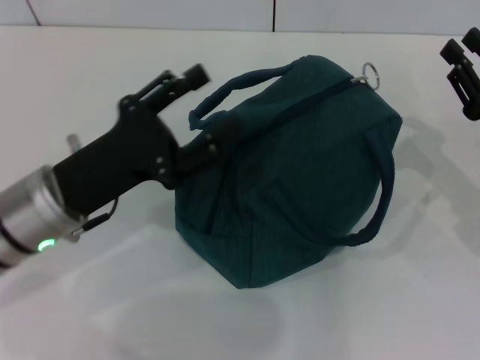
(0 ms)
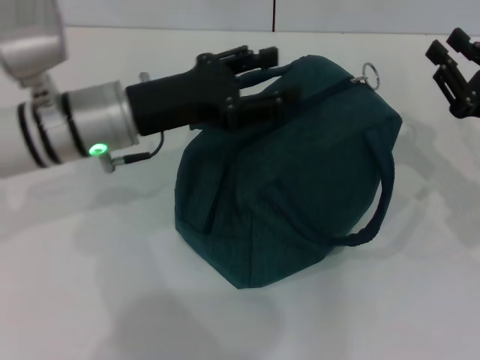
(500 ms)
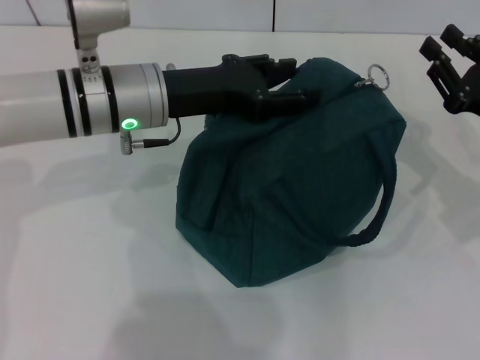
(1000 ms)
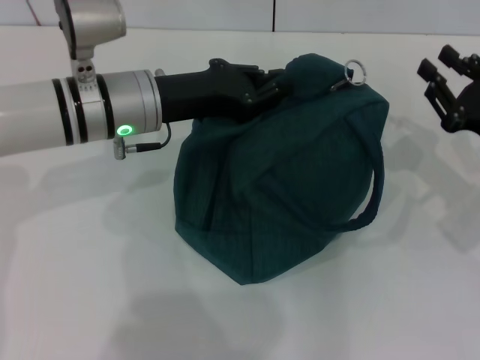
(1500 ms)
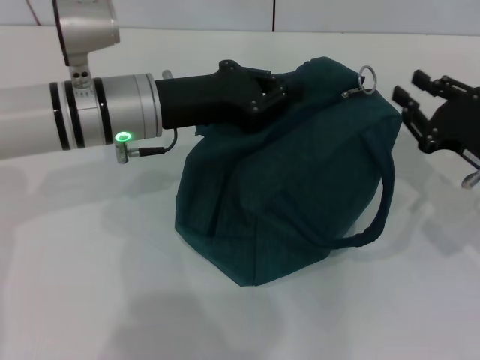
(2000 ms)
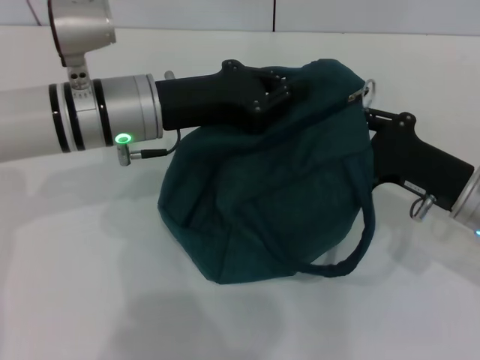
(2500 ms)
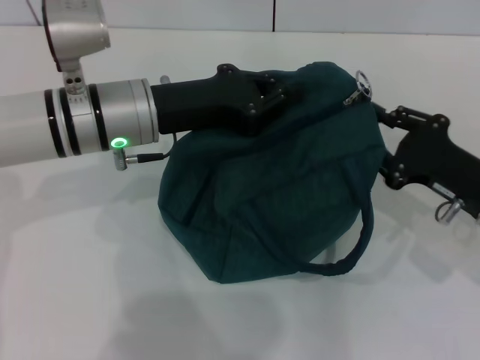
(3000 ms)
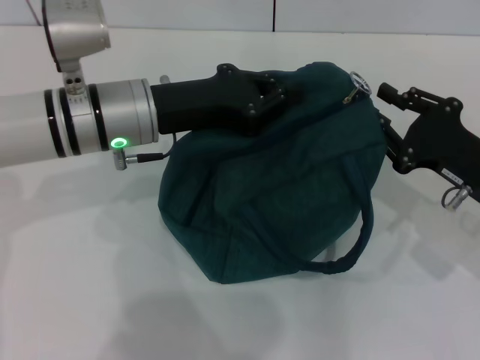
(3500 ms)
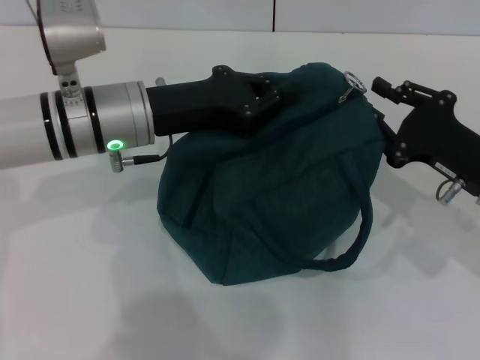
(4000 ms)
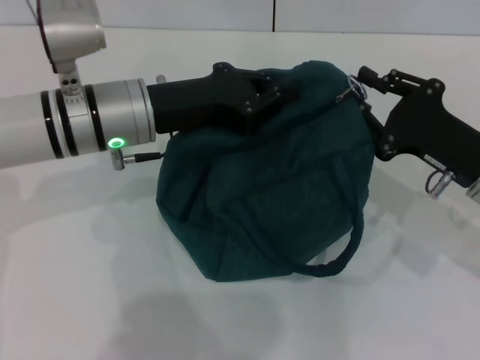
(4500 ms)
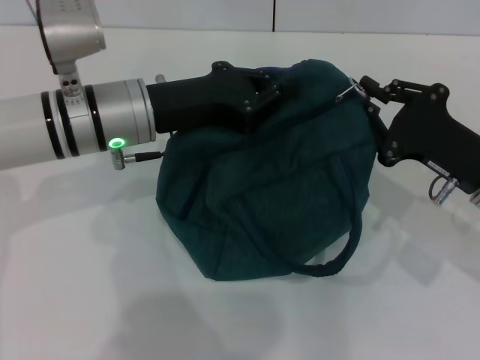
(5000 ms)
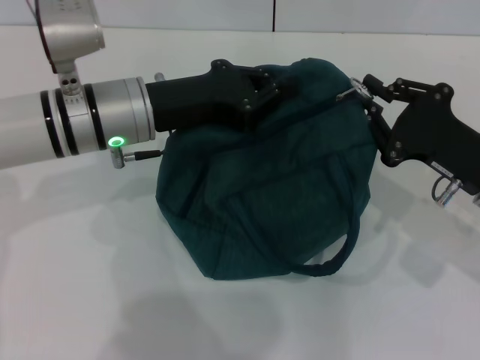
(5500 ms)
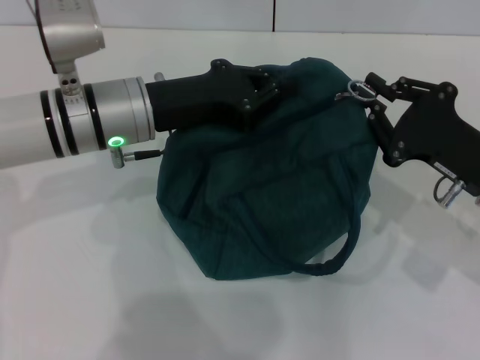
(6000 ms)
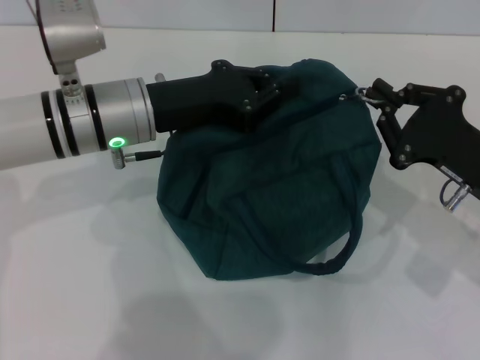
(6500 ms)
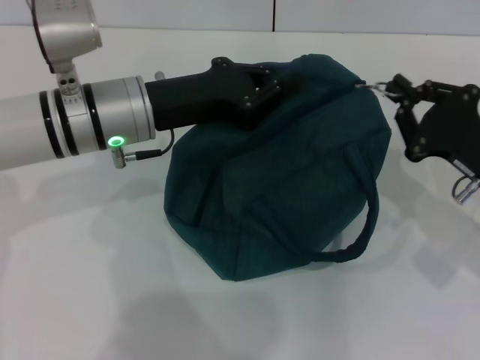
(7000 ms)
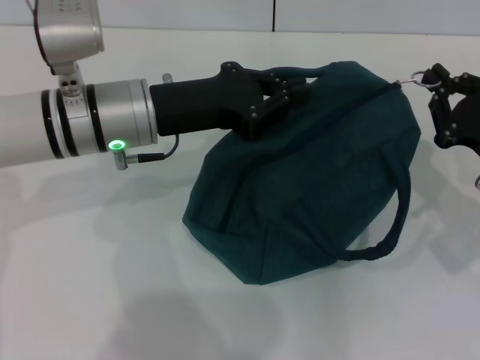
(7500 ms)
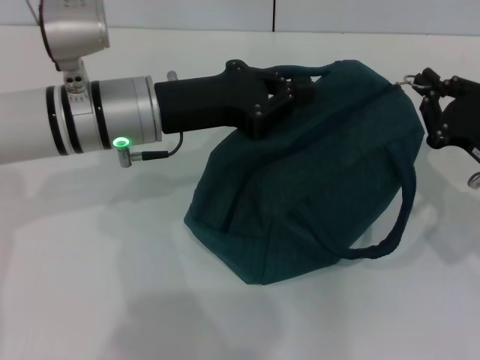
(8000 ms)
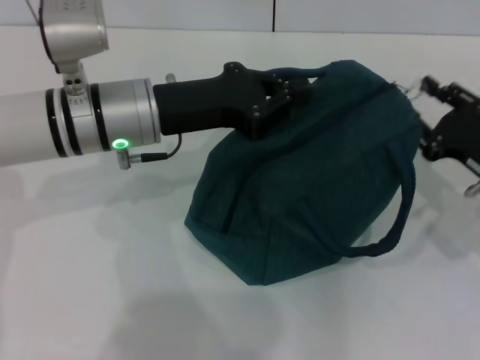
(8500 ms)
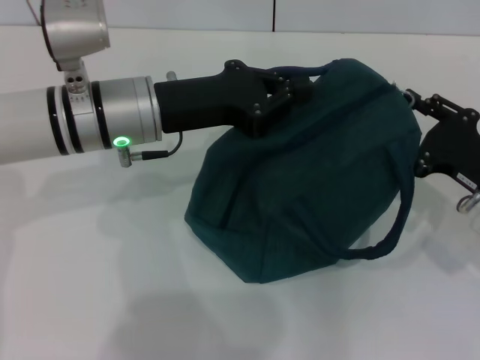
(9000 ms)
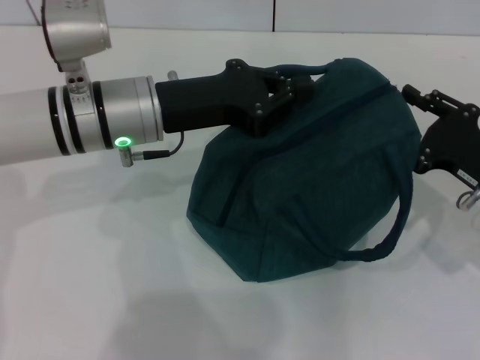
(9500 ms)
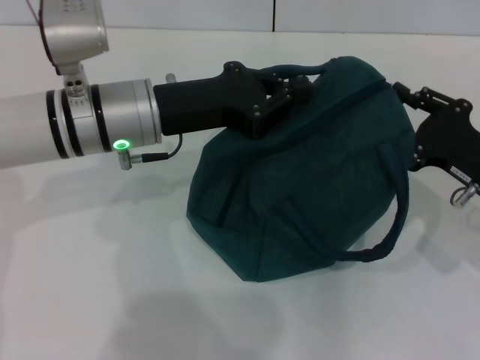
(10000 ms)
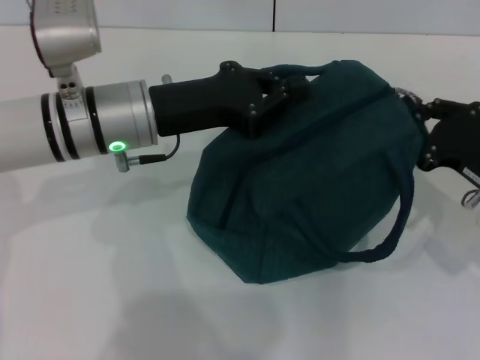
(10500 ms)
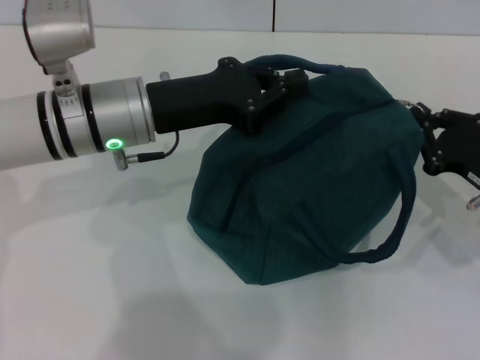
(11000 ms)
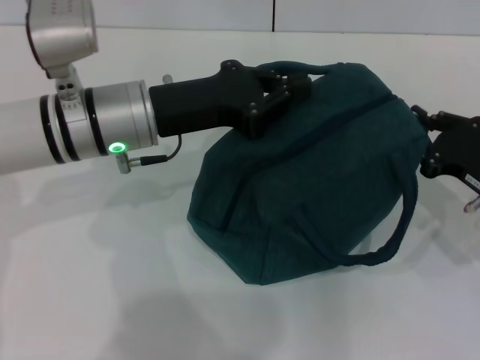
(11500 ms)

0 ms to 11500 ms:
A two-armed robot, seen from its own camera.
0 ms to 2000 ms: The left gripper goes roughly 10 cm forward and to the right, and closes its fingers.
2000 ms to 7500 ms: The grippers make only small movements.
7500 ms to 9500 ms: The right gripper opens.
9500 ms to 11500 ms: The right gripper closes.

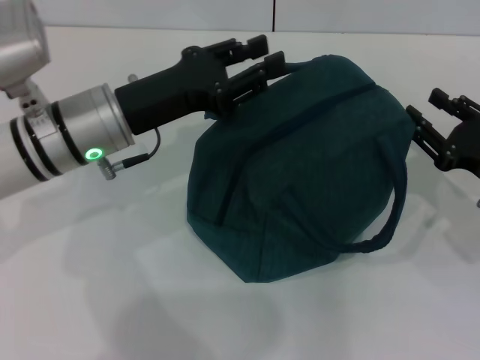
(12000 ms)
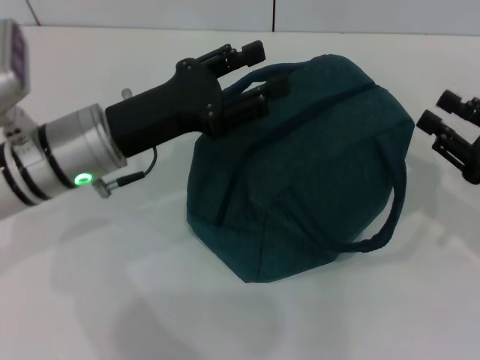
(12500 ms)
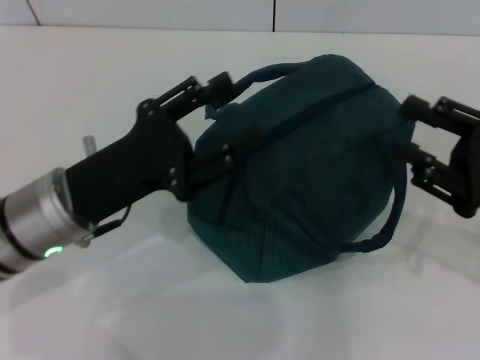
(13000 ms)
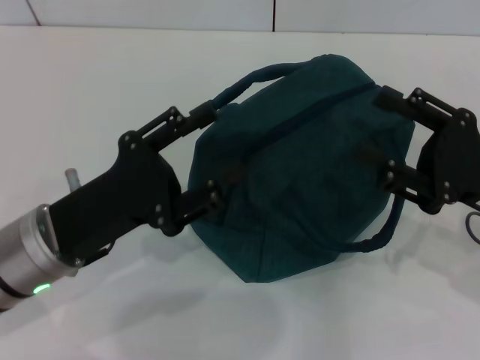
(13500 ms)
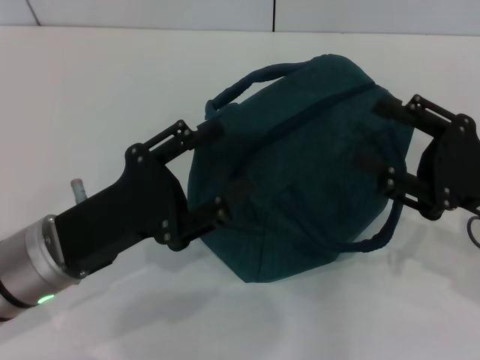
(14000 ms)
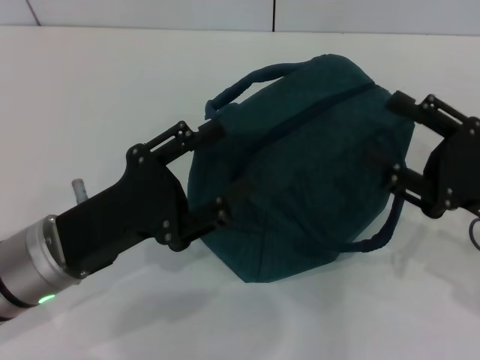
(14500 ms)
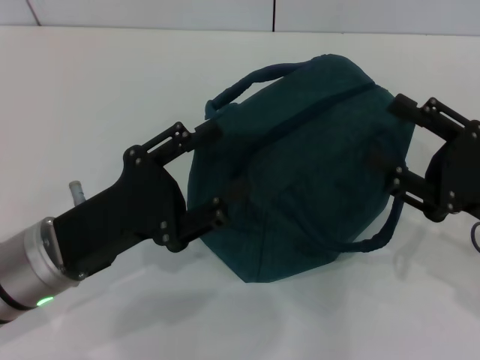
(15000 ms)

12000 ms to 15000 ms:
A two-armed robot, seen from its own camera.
12000 ms to 13500 ms: The right gripper moves roughly 5 cm. The left gripper shifts roughly 10 cm backward, and opens its fingers.
13500 ms to 15000 ms: The grippers move only a little.

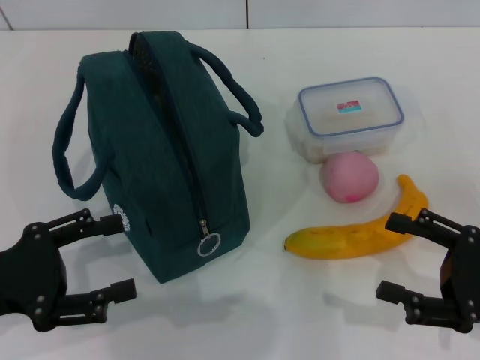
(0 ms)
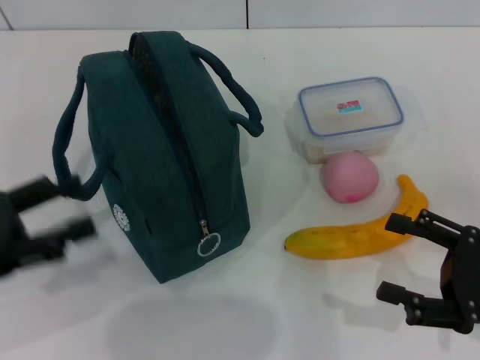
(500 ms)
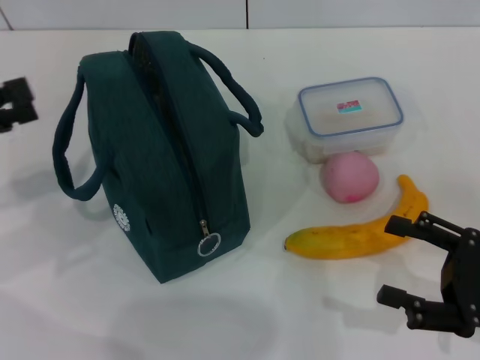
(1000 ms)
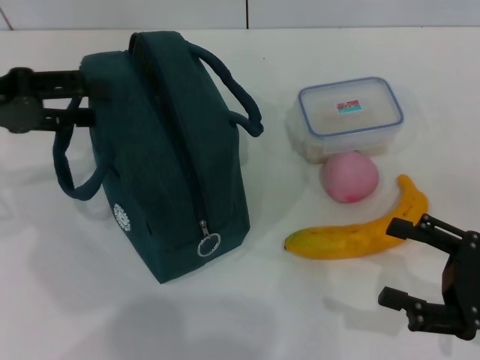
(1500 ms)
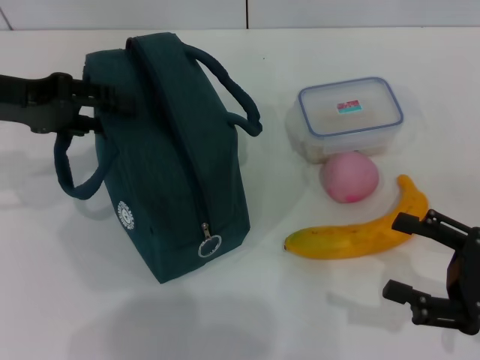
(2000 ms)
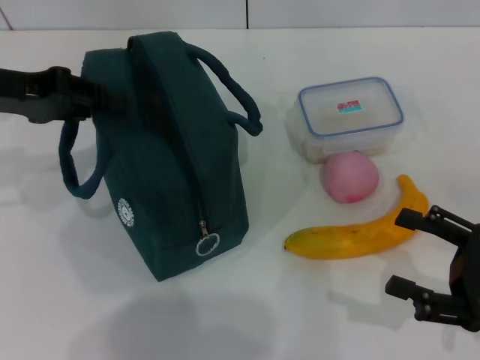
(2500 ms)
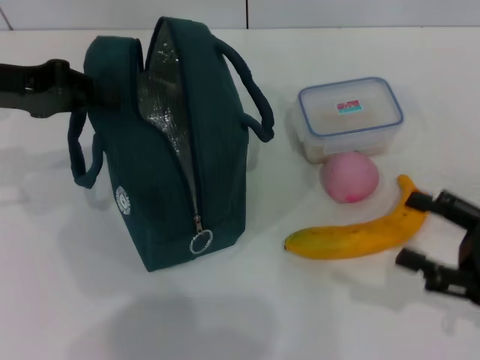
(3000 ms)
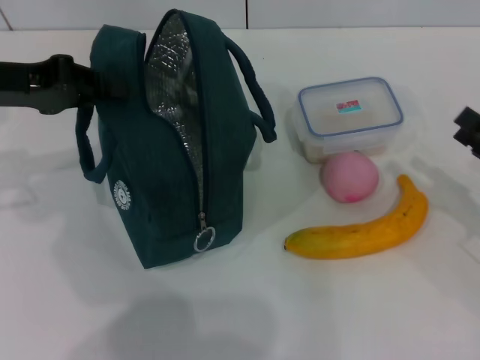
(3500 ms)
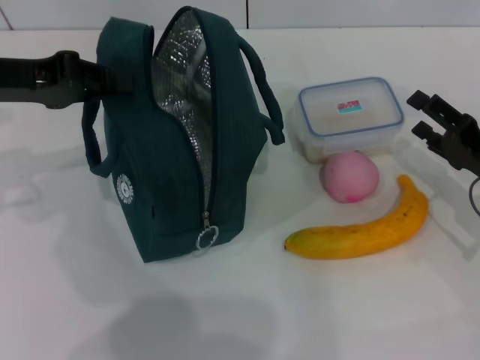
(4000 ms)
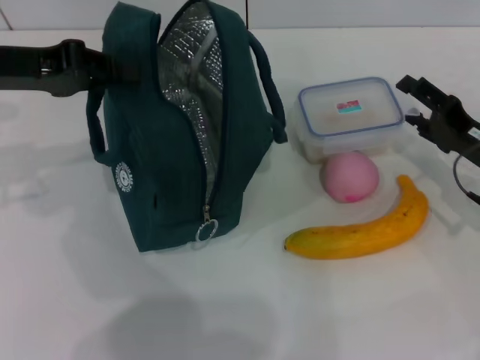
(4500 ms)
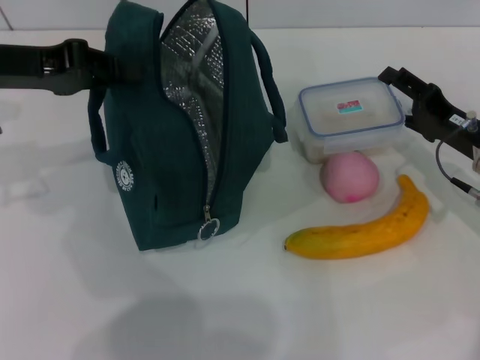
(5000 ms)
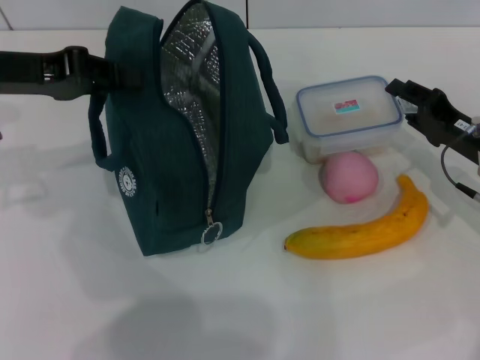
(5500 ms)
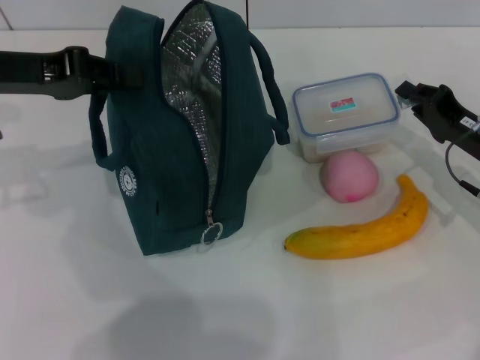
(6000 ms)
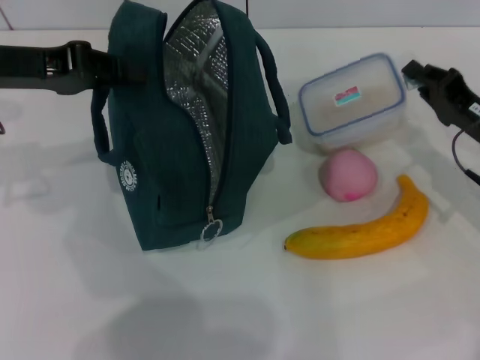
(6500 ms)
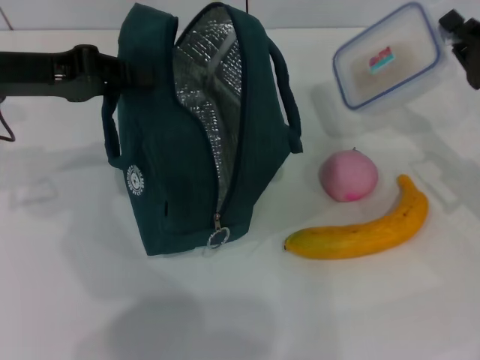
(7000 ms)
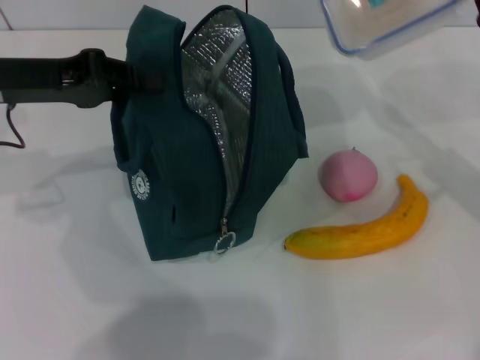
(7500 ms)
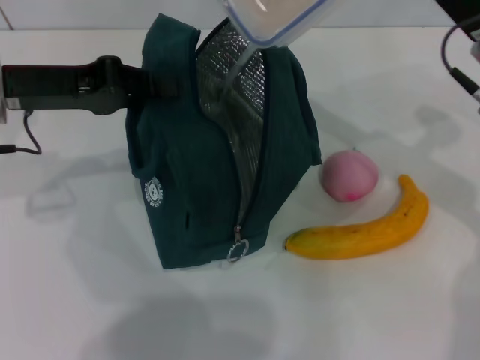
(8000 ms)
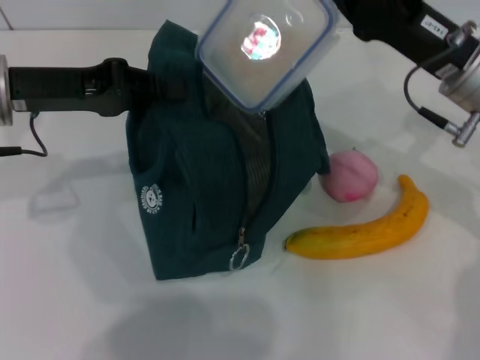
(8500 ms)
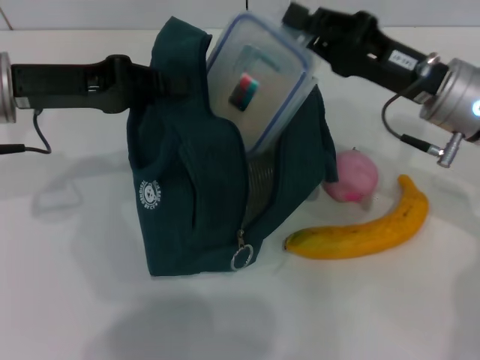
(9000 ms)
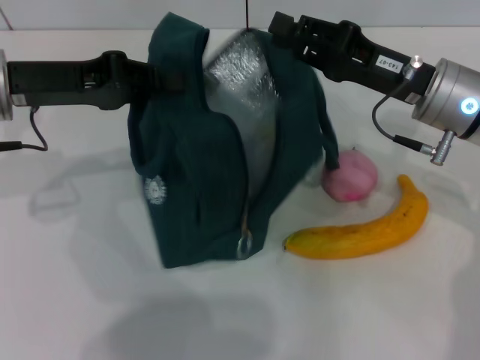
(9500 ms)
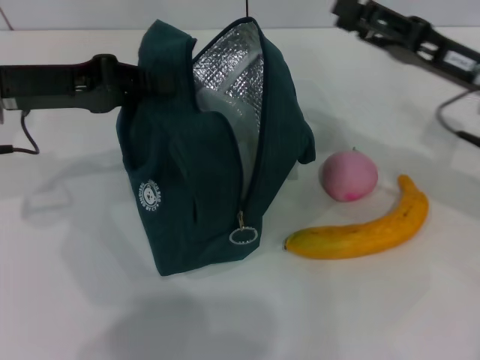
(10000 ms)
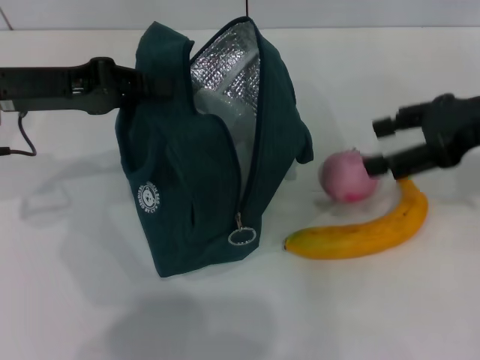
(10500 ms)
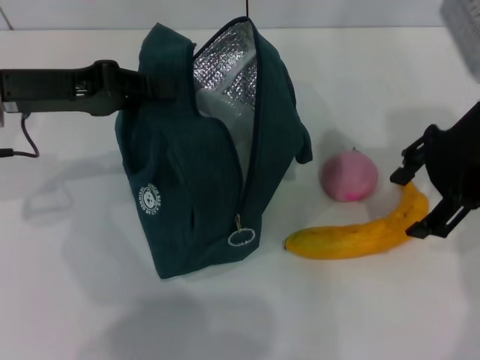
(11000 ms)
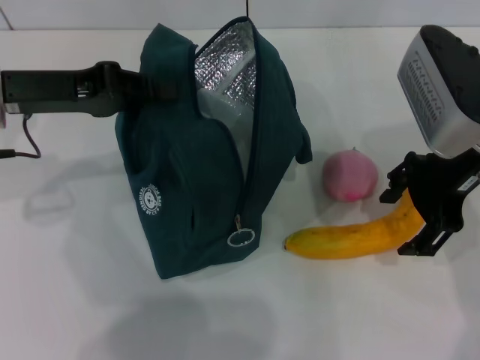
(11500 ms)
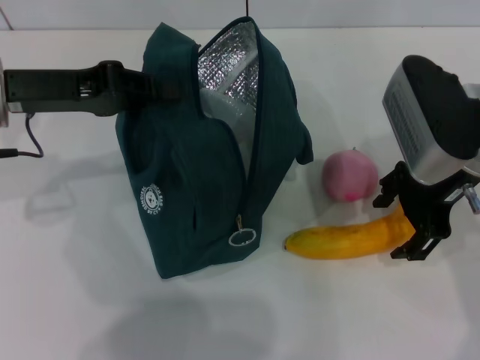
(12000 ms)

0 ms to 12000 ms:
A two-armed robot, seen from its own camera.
Step, 0 ms to 3000 ms: Hold the lunch bag with your left hand.
Step, 3500 ms to 6000 ms: Pick up the lunch box with your right hand.
Step, 6500 ms to 9500 ms: Place the lunch box into the lunch bag with your right hand.
0 ms to 2000 ms: The left gripper travels forward and upward by some 20 cm.
2000 ms to 4000 ms: The right gripper travels forward by some 10 cm; the left gripper closes up.
4000 ms to 6000 ms: The right gripper closes.
6000 ms to 8000 ms: The right gripper moves upward and to the left, approximately 15 cm.
8000 ms to 10000 ms: The right gripper opens its fingers.
10000 ms to 12000 ms: The right gripper shifts approximately 5 cm to the left.
